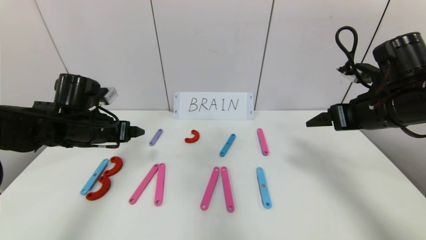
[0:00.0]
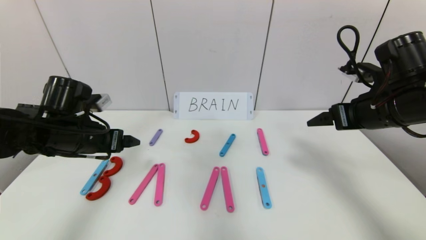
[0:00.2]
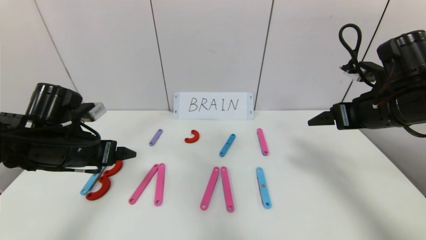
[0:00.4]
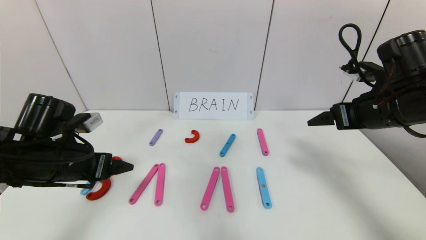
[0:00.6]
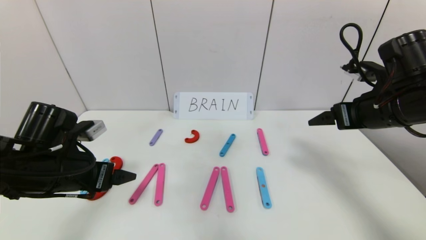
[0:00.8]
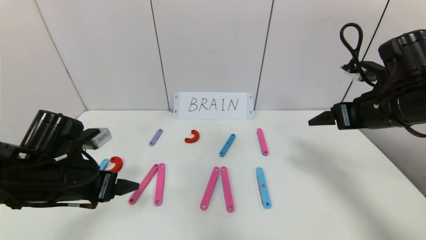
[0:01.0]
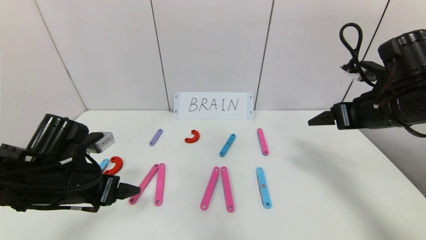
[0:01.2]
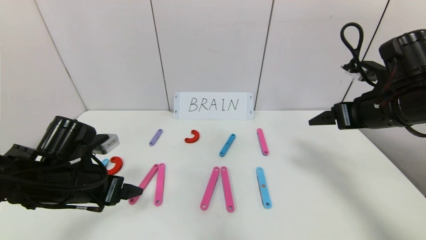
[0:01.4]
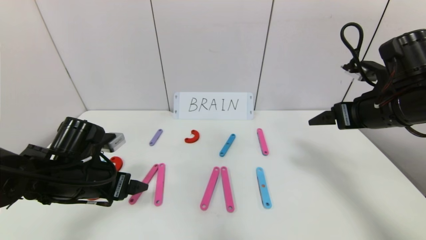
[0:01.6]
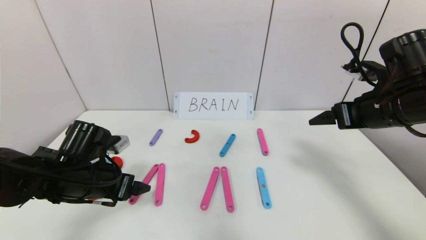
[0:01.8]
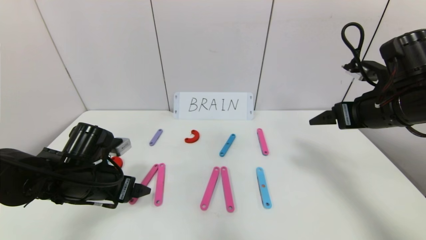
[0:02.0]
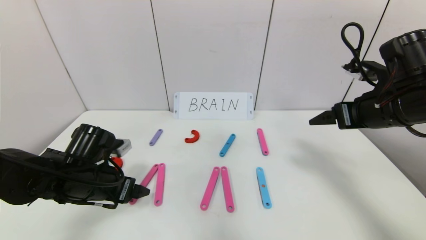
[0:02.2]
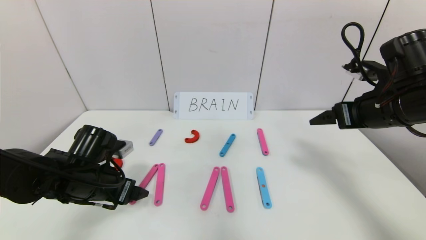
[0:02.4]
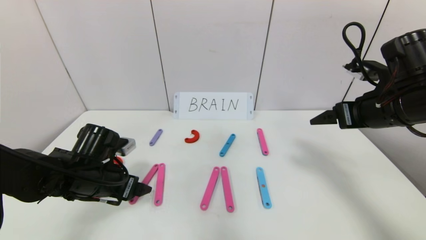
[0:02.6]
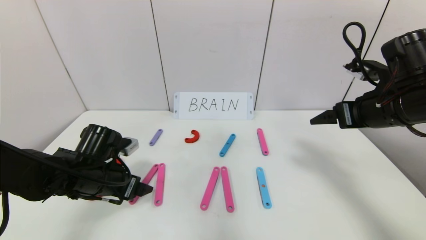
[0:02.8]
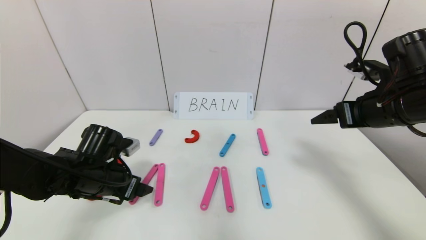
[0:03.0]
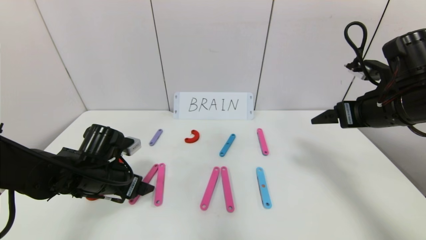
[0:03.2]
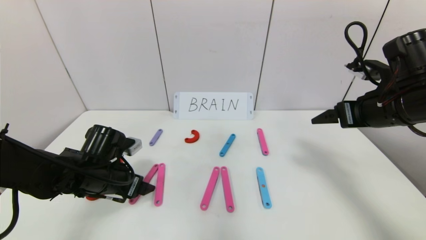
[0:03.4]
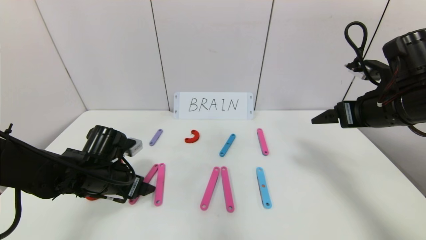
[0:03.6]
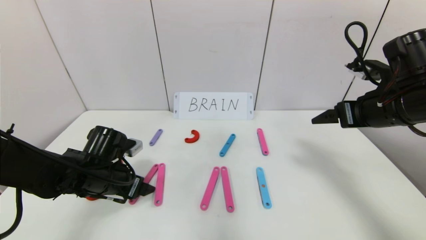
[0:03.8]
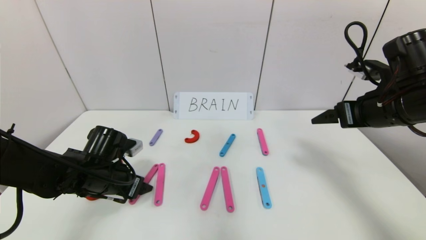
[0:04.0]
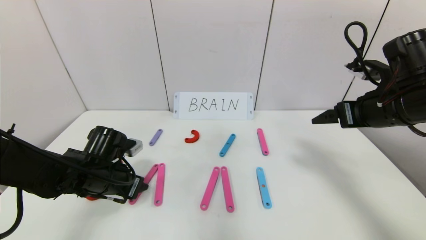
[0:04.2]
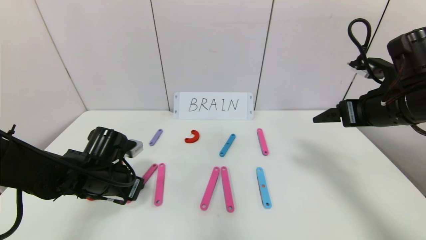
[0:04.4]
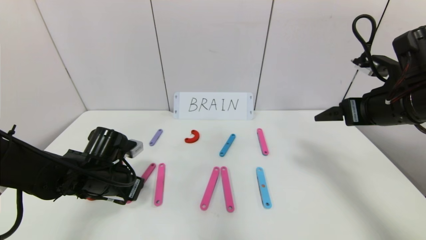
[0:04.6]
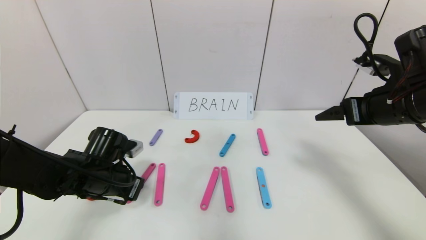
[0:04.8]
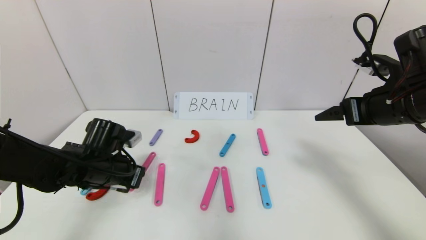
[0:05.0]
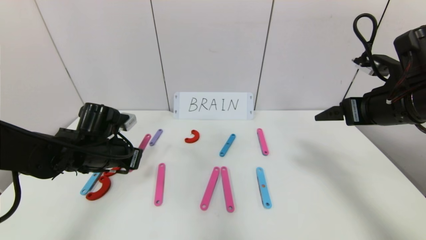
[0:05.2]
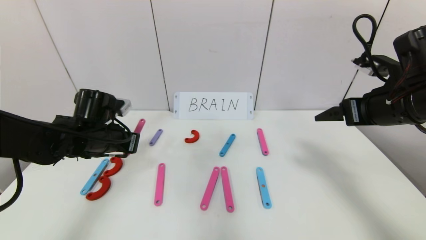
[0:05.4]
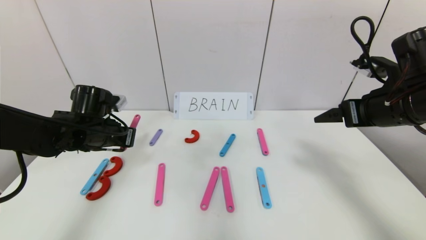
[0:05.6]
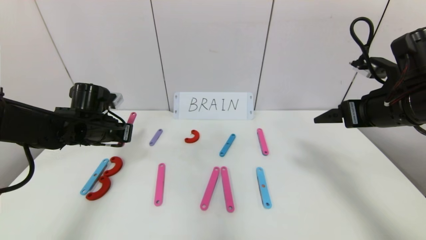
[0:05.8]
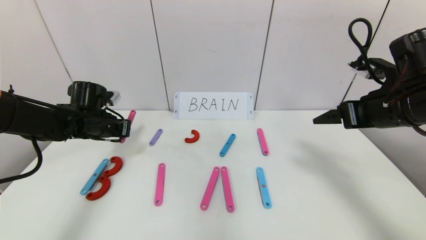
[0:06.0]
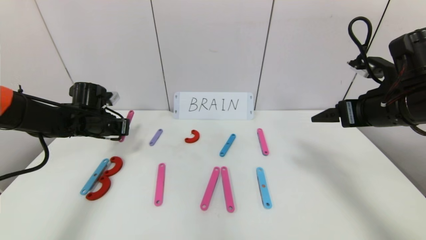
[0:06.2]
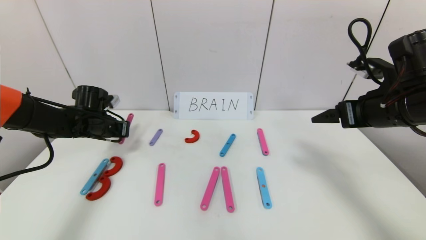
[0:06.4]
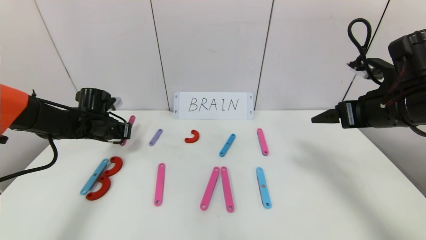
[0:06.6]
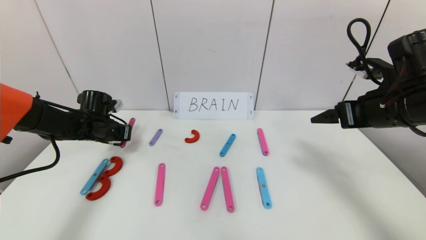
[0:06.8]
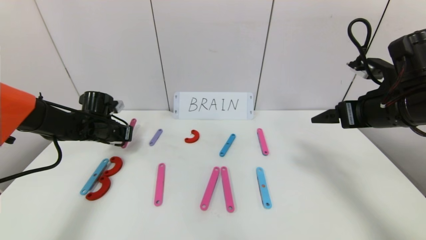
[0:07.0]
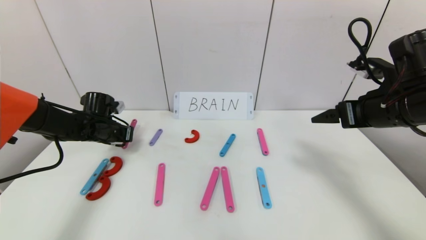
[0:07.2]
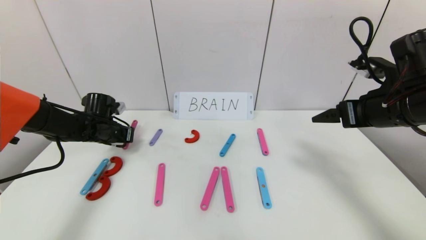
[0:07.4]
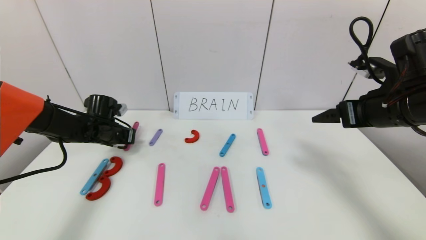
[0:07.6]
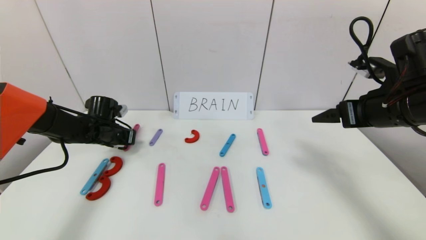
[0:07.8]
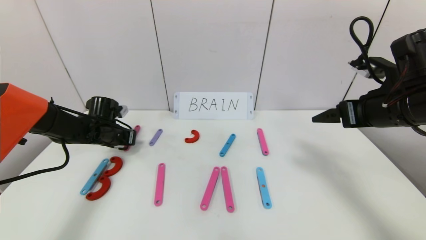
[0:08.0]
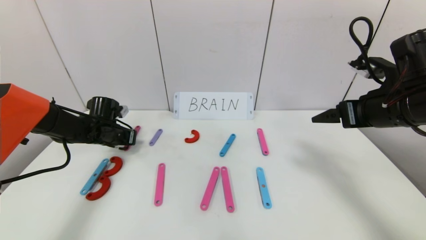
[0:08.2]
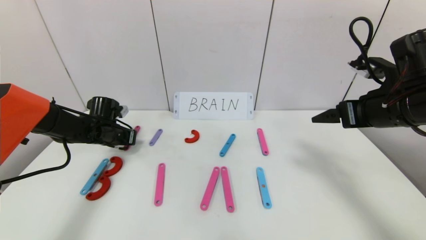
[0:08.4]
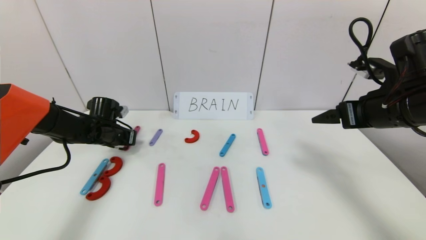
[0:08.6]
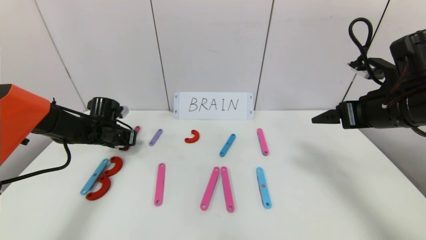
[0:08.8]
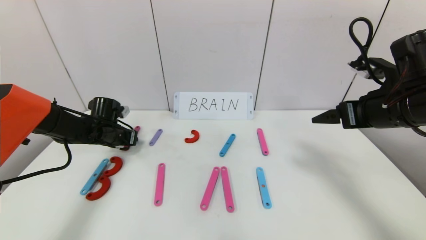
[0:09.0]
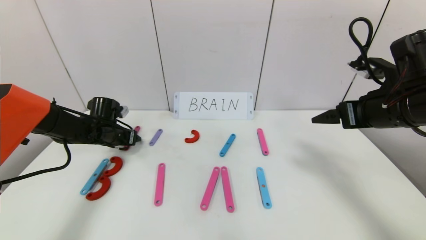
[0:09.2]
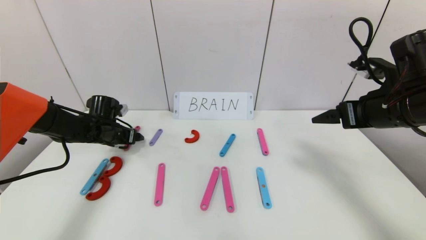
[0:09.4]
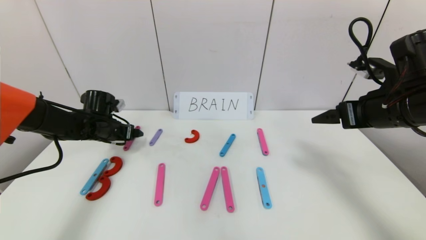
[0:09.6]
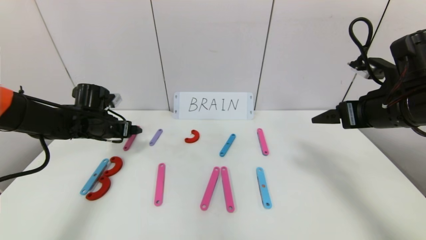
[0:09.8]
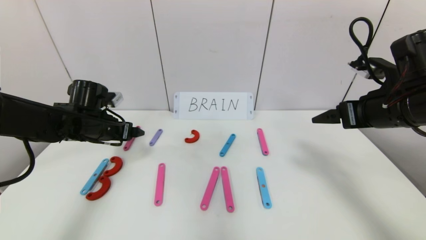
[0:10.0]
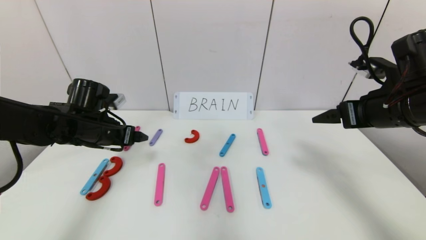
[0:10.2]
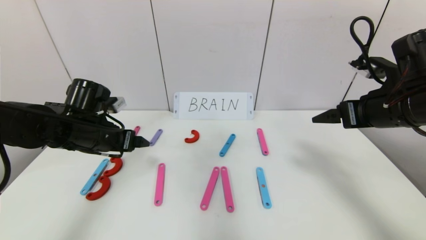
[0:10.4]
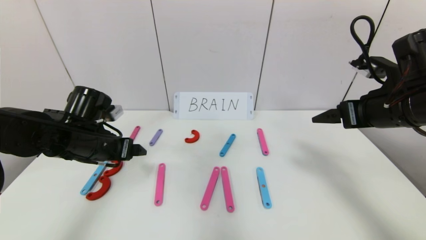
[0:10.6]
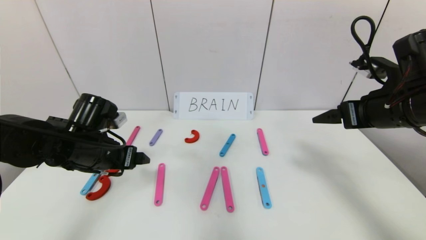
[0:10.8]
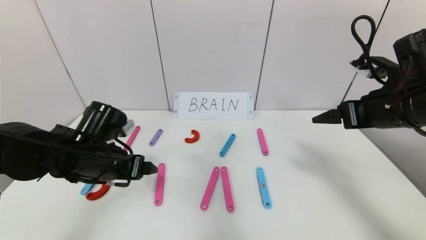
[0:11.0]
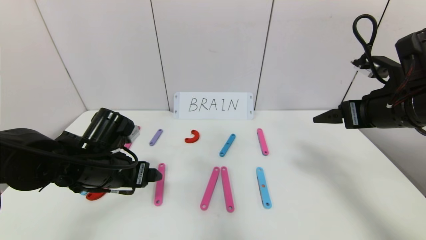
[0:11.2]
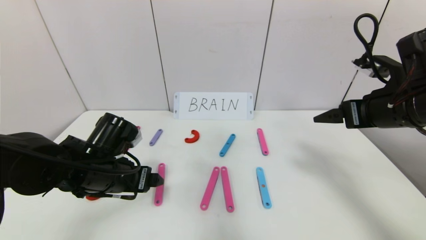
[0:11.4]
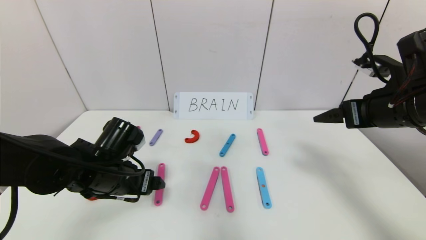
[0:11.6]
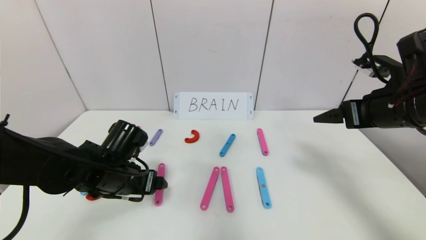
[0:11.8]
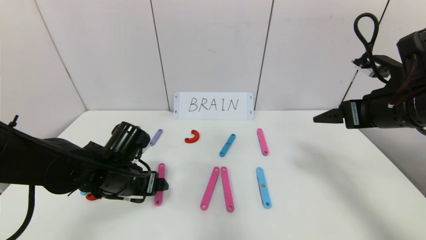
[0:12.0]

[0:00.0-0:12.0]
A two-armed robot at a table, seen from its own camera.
Task of the whole recording: rearrange the word baai as brain.
0:00.0 to 0:01.6: The left gripper goes roughly 10 cm backward and downward.
0:01.6 to 0:03.0: There are only small adjustments of the grippers.
0:03.0 to 0:04.4: The left gripper closes its fingers.
0:04.4 to 0:06.0: The left gripper travels forward, to the left and upward by roughly 15 cm.
0:06.0 to 0:07.6: The left gripper changes place by about 5 cm.
0:07.6 to 0:09.0: Neither gripper changes place.
0:09.0 to 0:10.4: The left gripper goes about 15 cm backward, upward and to the right, and opens.
0:10.4 to 0:12.0: The left gripper heads downward and to the right, covering some 10 cm.

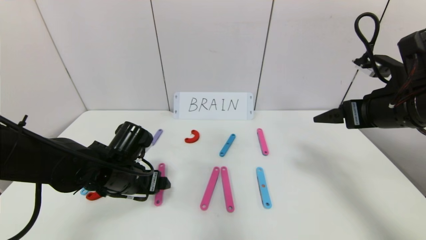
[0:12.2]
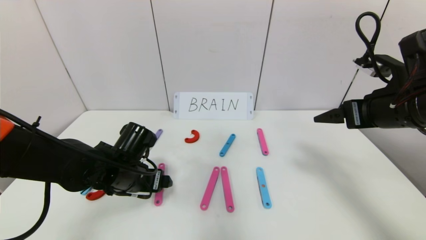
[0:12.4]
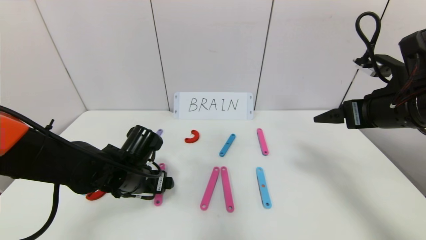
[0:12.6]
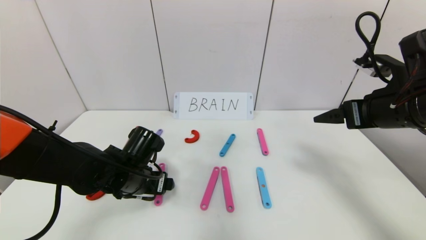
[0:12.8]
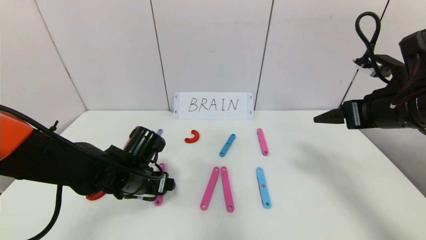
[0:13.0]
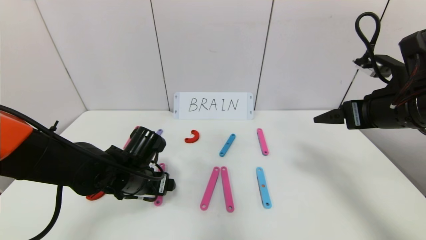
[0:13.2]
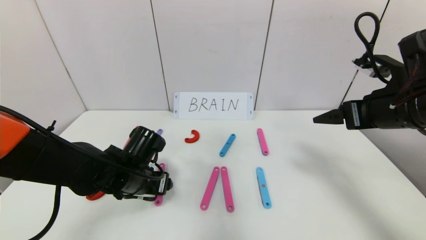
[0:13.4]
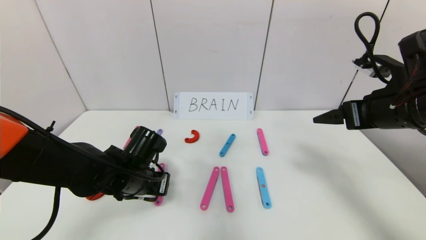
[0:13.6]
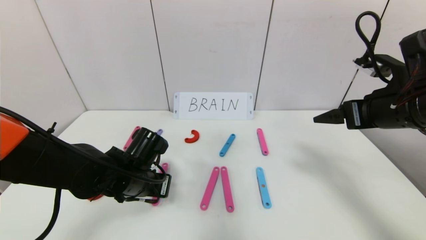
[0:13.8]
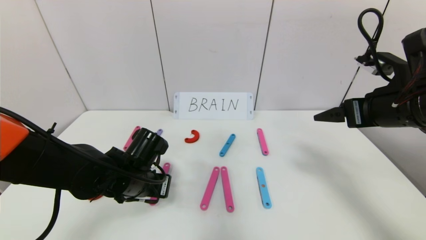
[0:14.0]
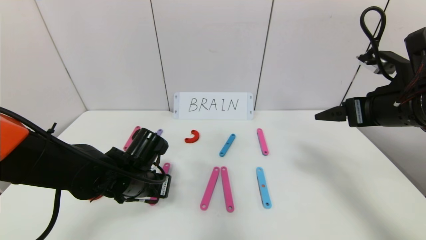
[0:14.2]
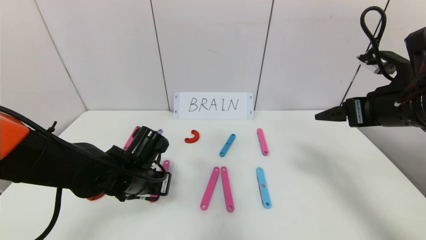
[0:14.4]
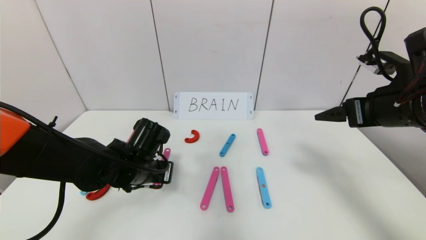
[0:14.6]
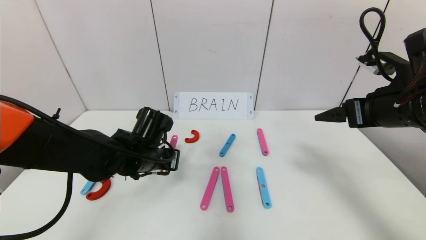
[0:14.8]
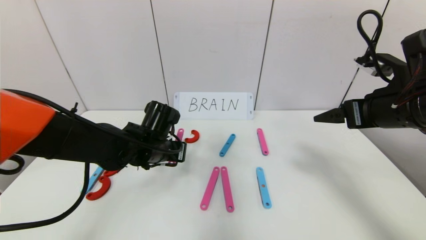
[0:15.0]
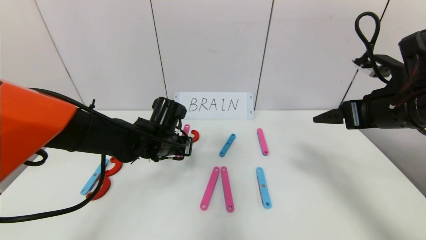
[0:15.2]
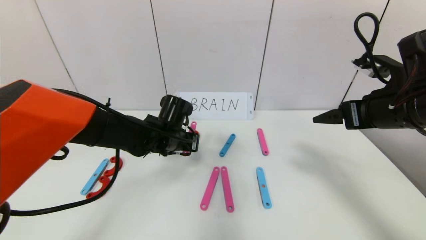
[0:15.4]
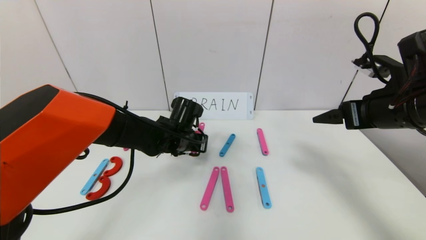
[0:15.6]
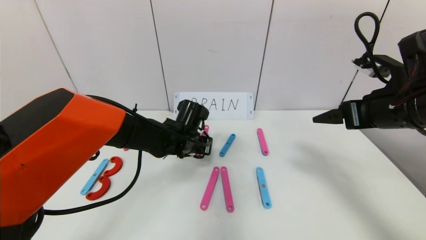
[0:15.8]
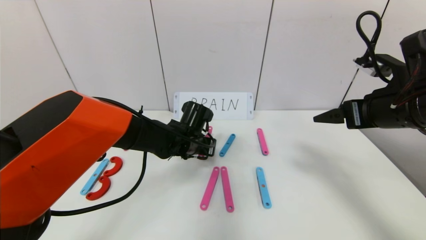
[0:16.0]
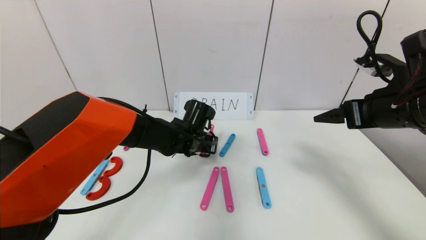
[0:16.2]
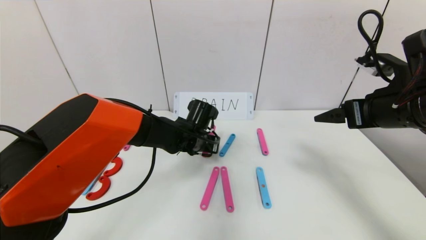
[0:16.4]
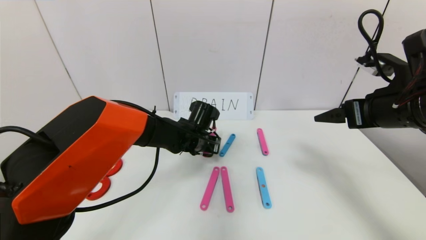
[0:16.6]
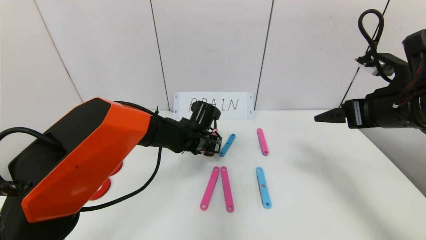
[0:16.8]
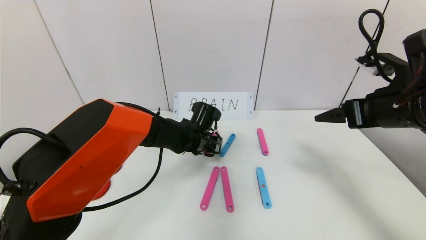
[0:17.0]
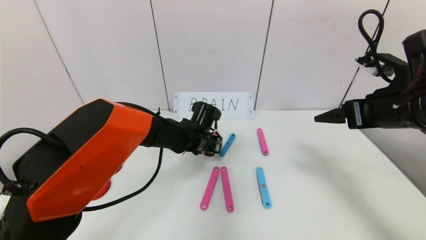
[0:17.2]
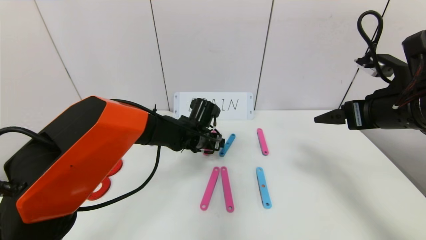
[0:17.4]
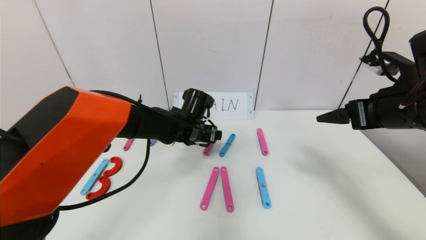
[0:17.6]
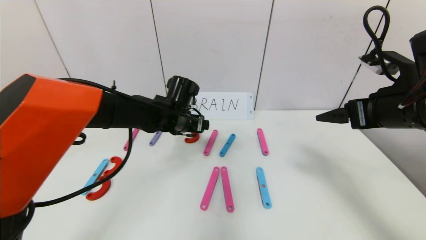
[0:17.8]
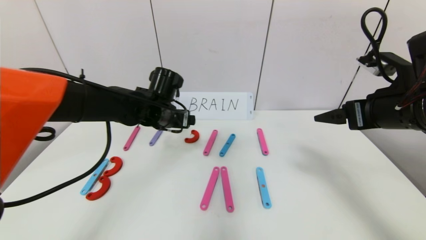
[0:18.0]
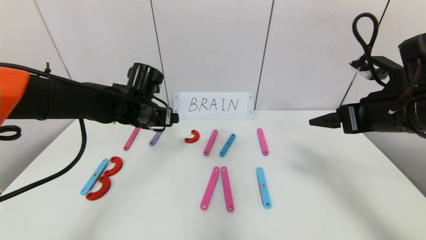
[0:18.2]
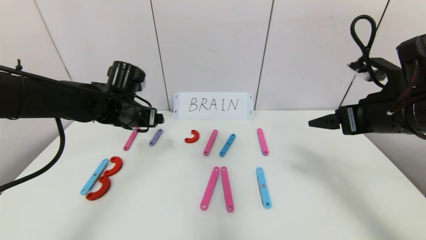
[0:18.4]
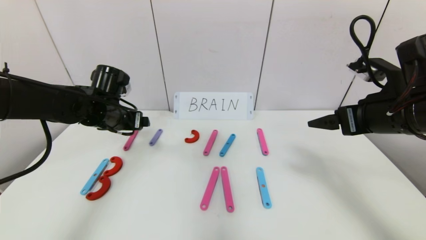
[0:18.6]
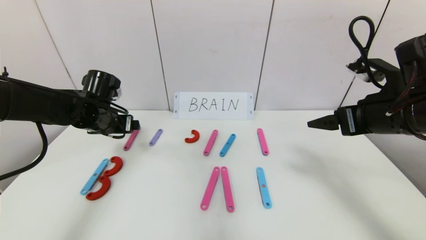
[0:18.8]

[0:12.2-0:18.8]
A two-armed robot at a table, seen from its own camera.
Task of the whole recording: rearrange the word baai as brain.
Step, 0:12.2 to 0:17.2: Disassemble the second character A.
0:12.2 to 0:13.8: The left gripper closes its fingers.
0:13.8 to 0:15.4: The left gripper is displaced forward and to the right by some 10 cm.
0:15.4 to 0:17.2: The left gripper goes roughly 5 cm to the right, and opens.
0:17.2 to 0:18.8: The left gripper moves to the left, roughly 20 cm.
